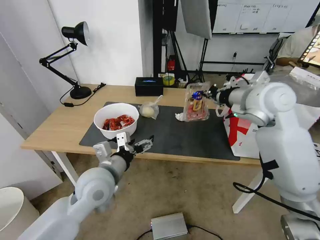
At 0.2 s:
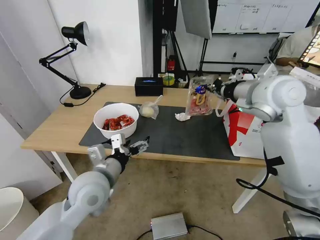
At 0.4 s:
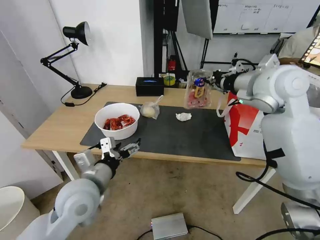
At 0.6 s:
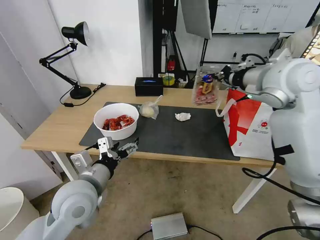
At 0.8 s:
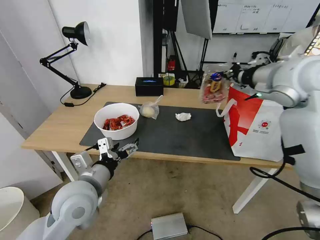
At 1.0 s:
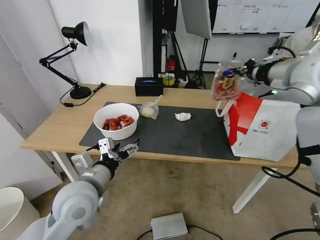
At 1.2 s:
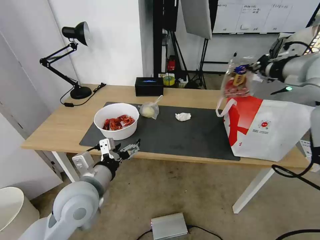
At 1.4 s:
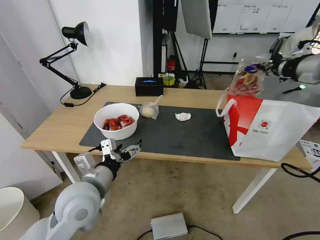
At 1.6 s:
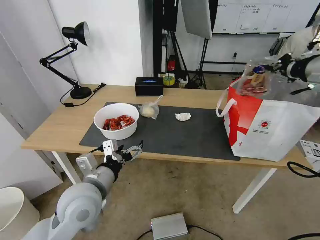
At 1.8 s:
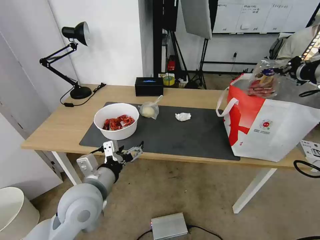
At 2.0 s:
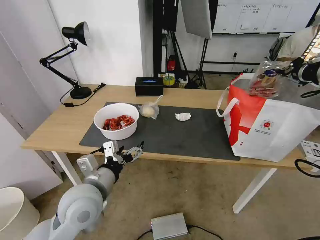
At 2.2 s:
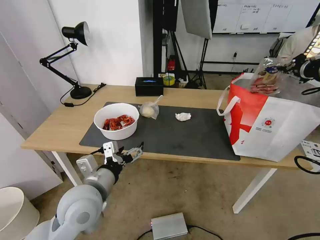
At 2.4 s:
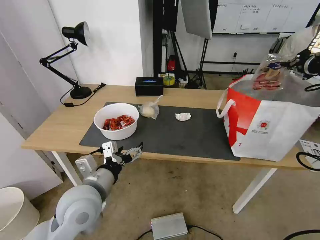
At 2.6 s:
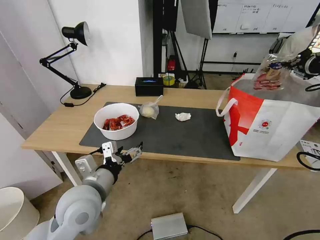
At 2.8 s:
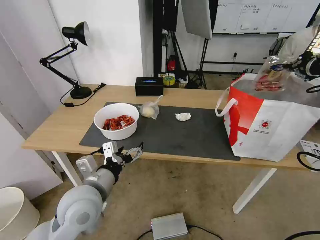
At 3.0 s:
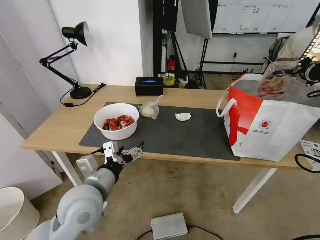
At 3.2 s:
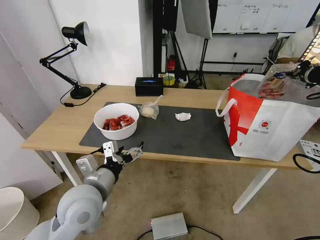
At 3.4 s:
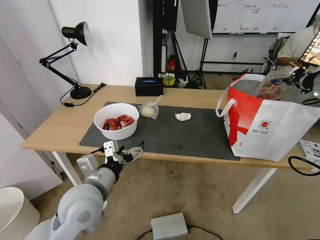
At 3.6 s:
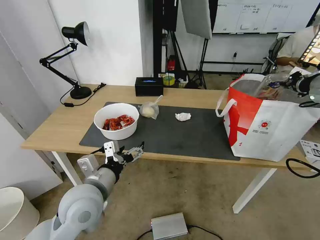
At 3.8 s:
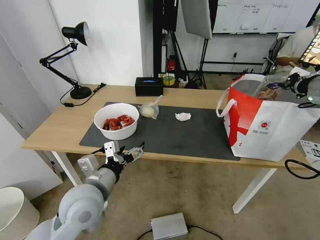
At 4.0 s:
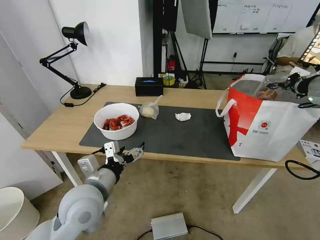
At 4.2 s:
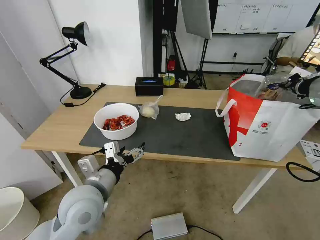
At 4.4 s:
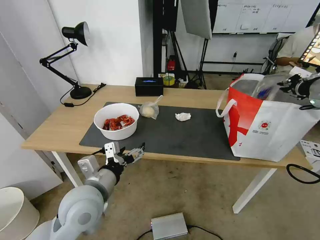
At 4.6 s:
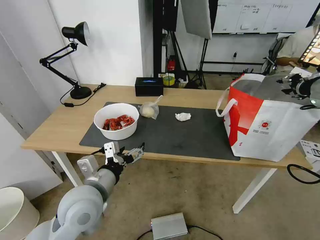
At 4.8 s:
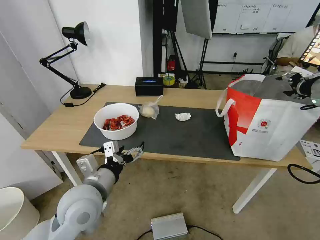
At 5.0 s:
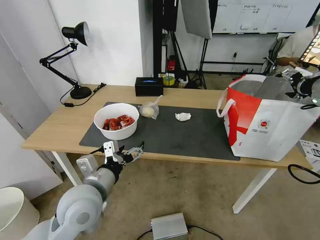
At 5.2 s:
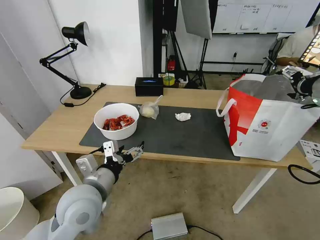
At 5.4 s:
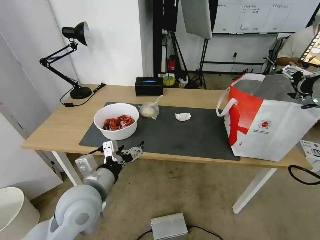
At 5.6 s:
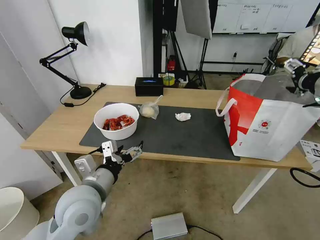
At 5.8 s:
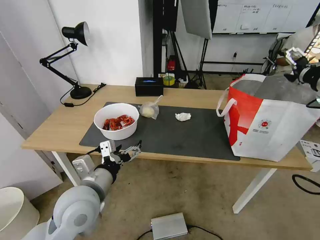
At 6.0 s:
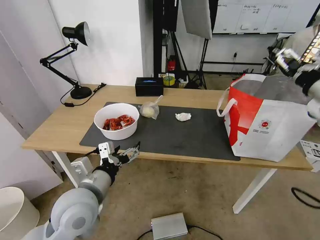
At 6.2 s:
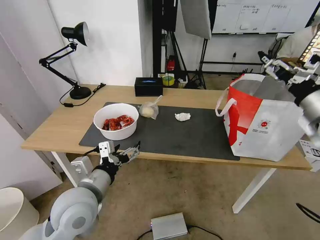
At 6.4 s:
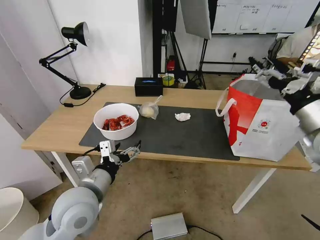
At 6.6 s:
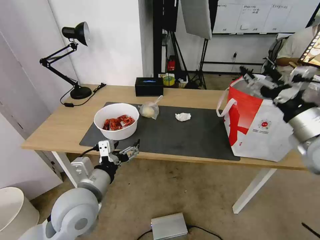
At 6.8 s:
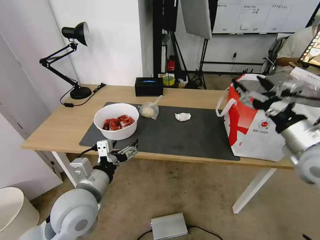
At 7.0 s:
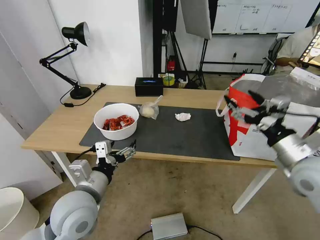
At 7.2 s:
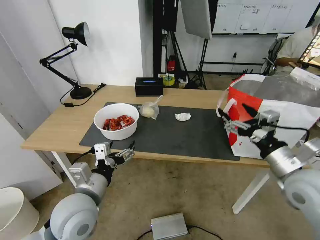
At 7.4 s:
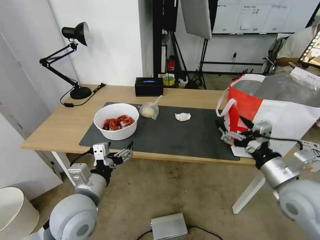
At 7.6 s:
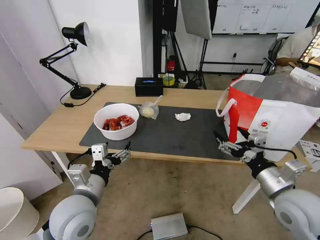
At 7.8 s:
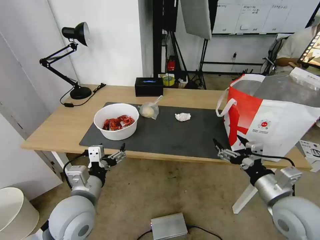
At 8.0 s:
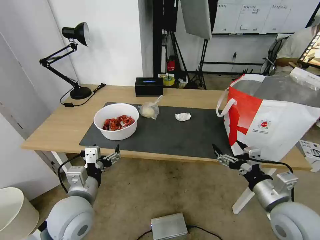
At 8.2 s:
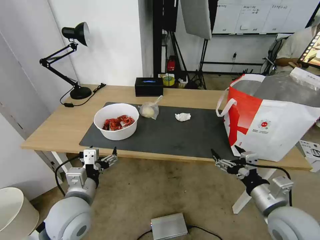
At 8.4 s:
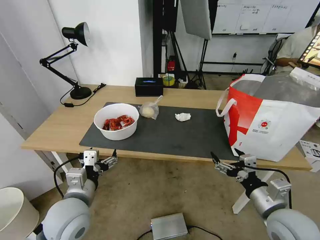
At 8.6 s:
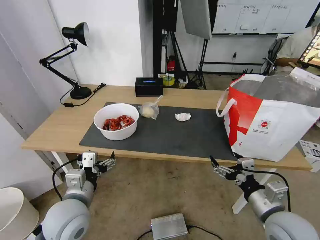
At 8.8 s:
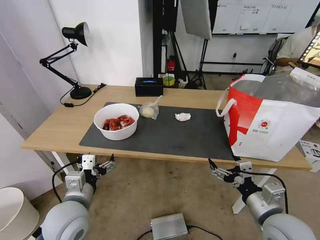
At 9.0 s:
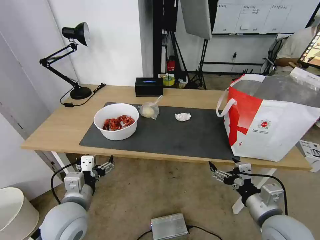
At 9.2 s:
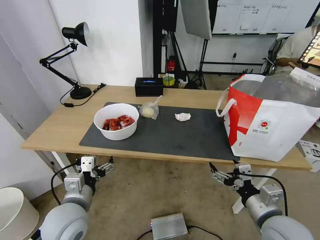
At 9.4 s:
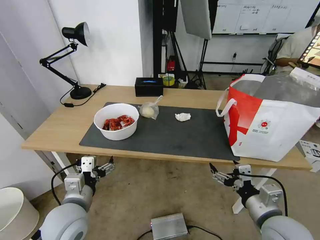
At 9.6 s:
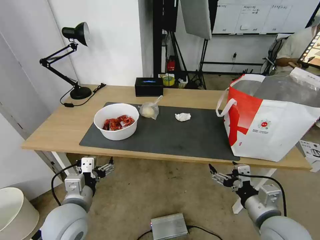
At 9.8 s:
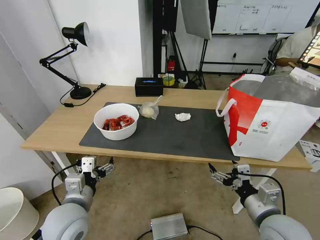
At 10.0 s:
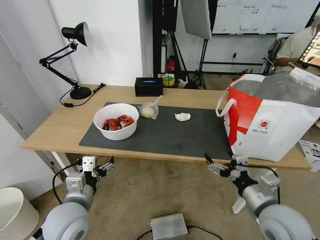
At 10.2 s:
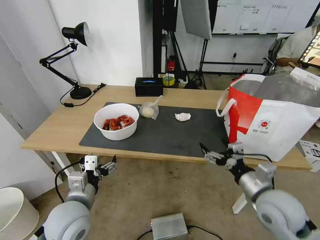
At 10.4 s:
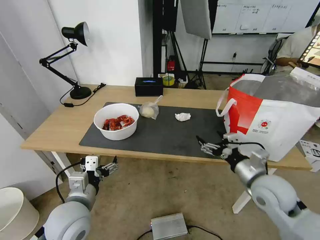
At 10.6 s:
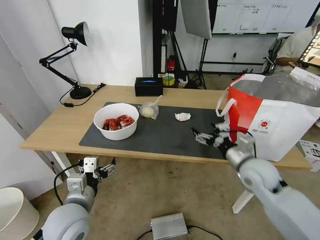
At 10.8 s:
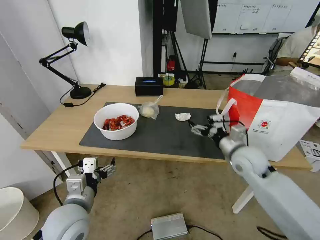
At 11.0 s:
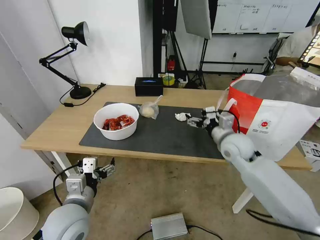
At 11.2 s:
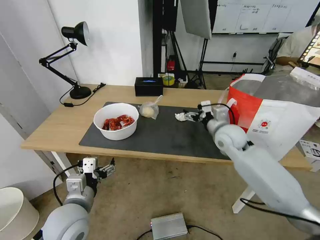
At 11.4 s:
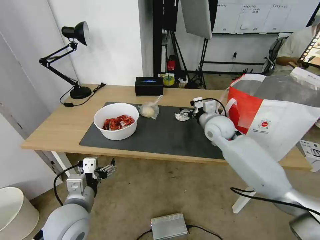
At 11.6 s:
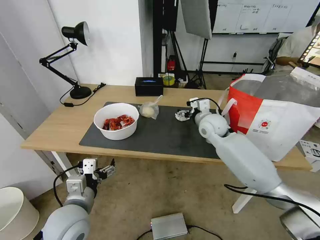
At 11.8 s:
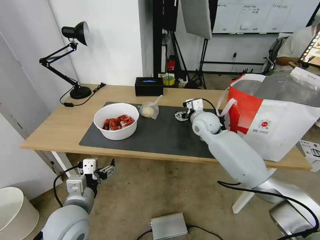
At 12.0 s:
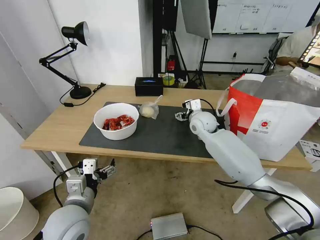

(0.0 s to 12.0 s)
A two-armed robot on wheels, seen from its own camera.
Task of the whole recording: Pick up the trash from the table and place it into the takeout bag.
0.0 s - 1.6 s: The right gripper is displaced to the right and upward by approximately 15 cm.
1.6 s - 3.0 s: The right gripper shifts by about 5 cm.
3.0 s - 4.4 s: The grippers move only a little.
4.4 s - 6.0 s: The right gripper is displaced backward by about 5 cm, and opens.
6.0 s - 7.6 s: The right gripper shifts approximately 25 cm downward, backward and to the left.
7.6 s - 9.0 s: The right gripper goes approximately 5 cm downward.
9.0 s - 10.4 s: The right gripper moves forward, approximately 10 cm.
10.4 s - 12.0 s: The right gripper goes some 30 cm forward and to the left.

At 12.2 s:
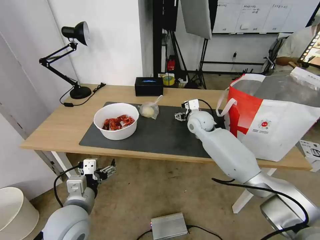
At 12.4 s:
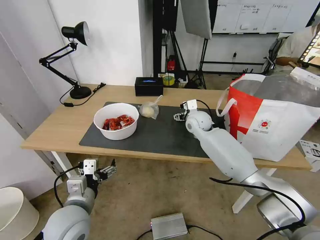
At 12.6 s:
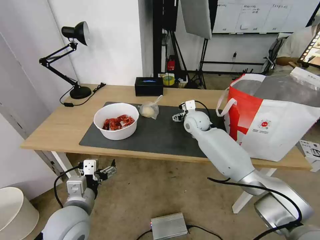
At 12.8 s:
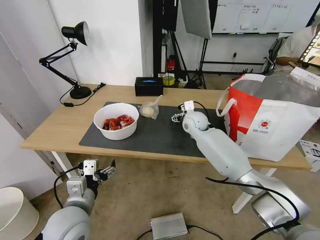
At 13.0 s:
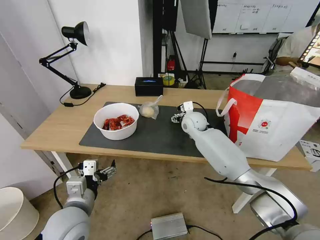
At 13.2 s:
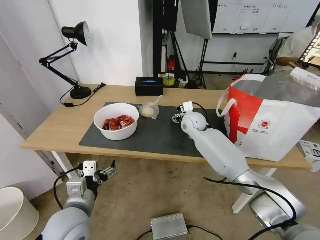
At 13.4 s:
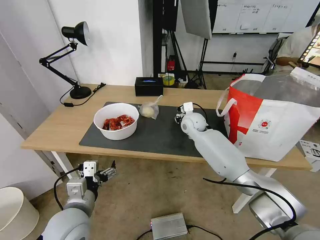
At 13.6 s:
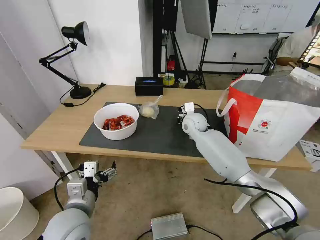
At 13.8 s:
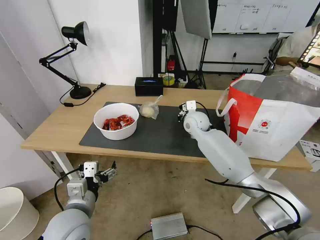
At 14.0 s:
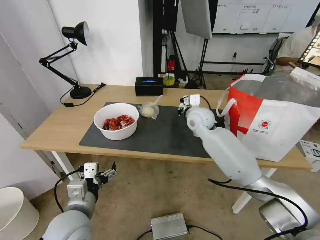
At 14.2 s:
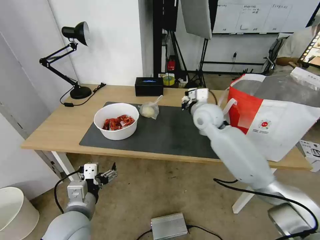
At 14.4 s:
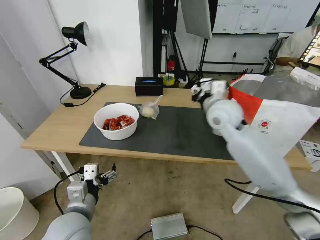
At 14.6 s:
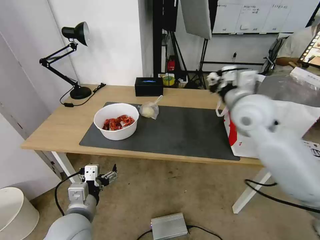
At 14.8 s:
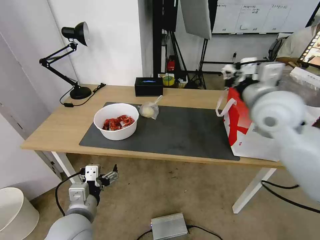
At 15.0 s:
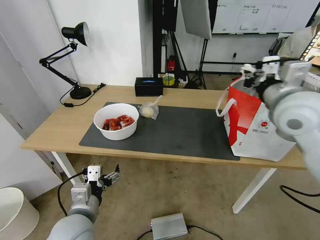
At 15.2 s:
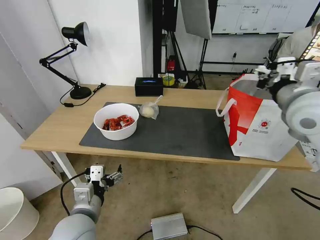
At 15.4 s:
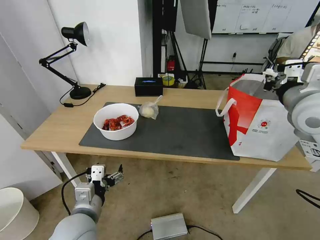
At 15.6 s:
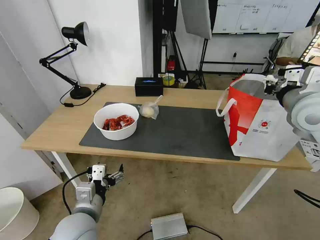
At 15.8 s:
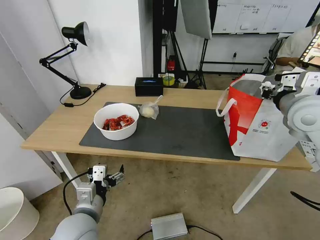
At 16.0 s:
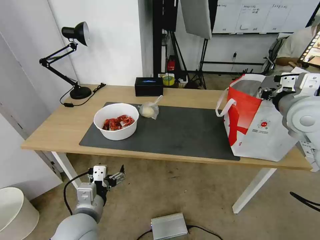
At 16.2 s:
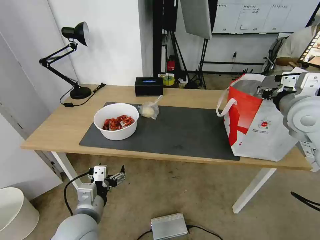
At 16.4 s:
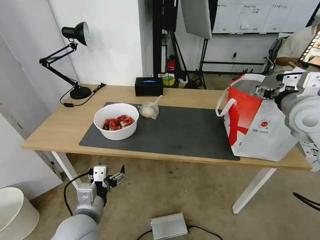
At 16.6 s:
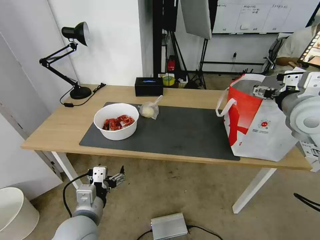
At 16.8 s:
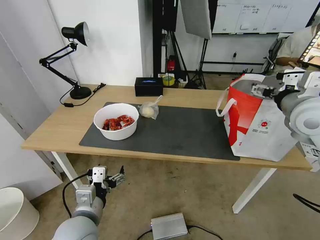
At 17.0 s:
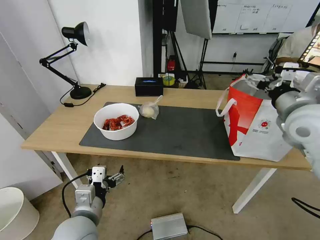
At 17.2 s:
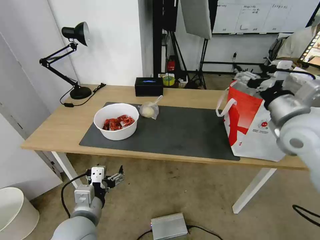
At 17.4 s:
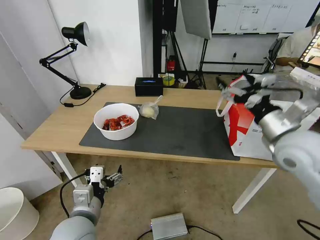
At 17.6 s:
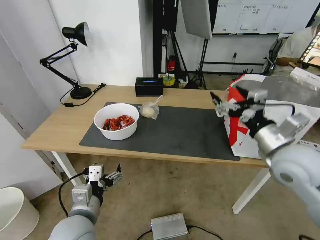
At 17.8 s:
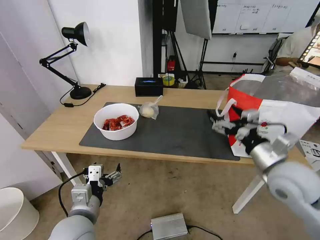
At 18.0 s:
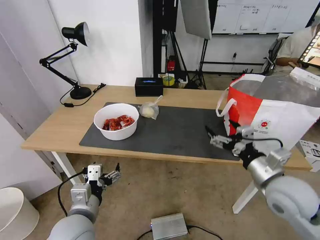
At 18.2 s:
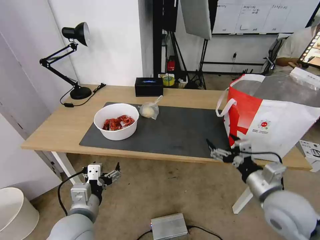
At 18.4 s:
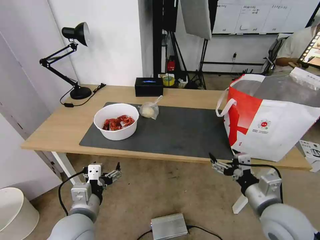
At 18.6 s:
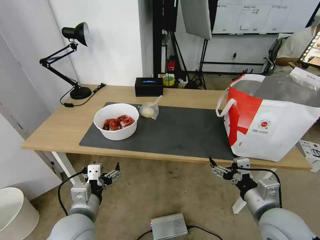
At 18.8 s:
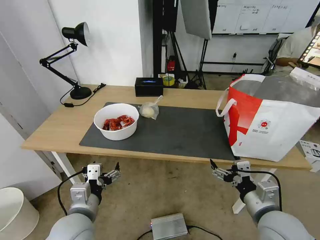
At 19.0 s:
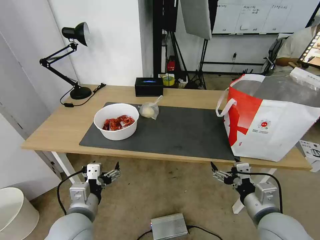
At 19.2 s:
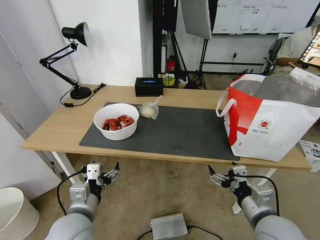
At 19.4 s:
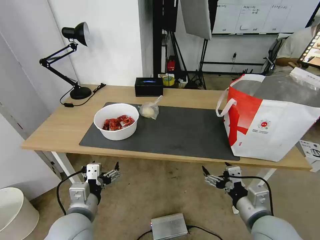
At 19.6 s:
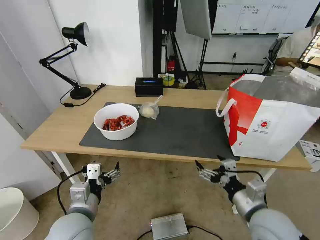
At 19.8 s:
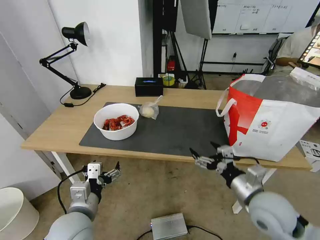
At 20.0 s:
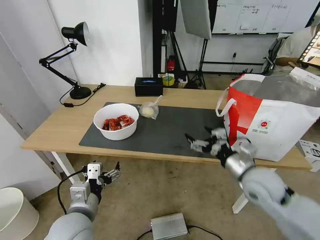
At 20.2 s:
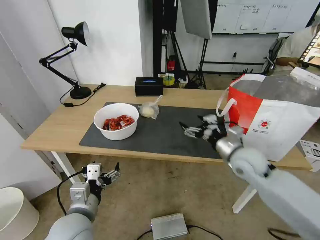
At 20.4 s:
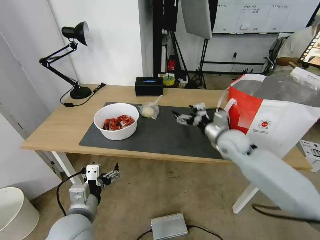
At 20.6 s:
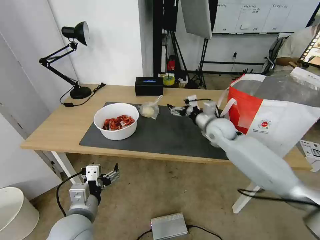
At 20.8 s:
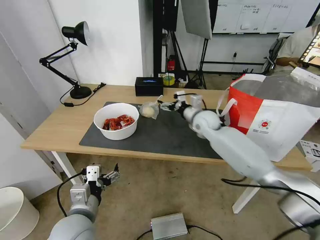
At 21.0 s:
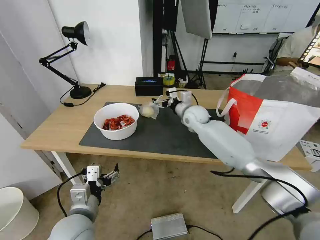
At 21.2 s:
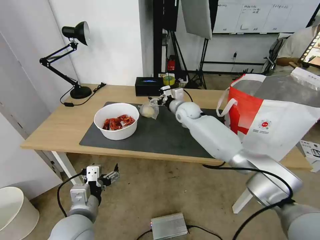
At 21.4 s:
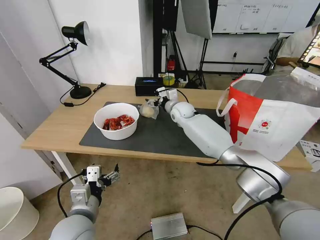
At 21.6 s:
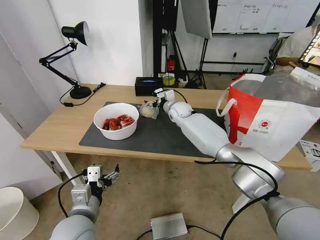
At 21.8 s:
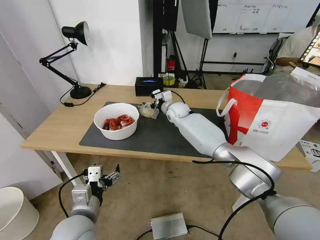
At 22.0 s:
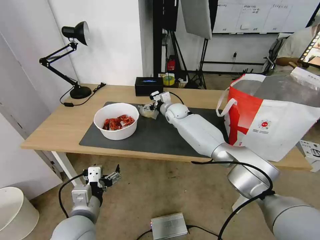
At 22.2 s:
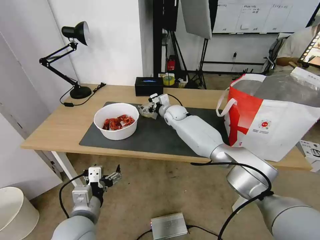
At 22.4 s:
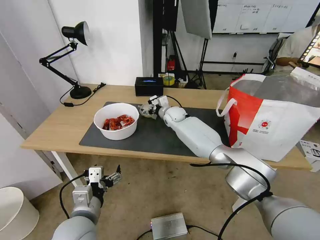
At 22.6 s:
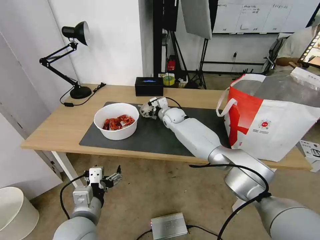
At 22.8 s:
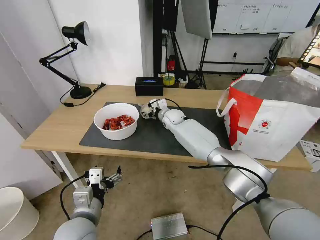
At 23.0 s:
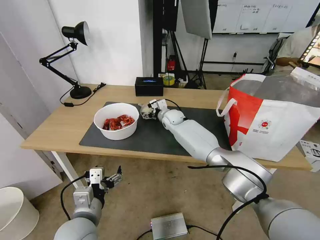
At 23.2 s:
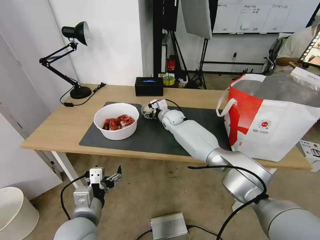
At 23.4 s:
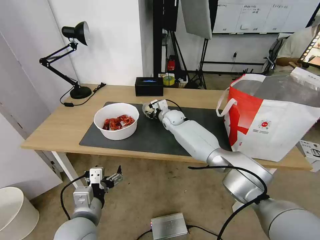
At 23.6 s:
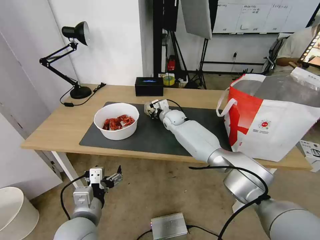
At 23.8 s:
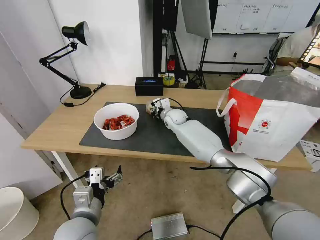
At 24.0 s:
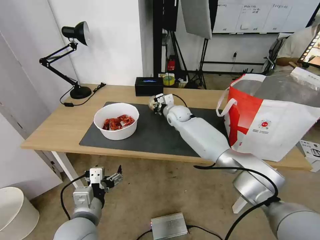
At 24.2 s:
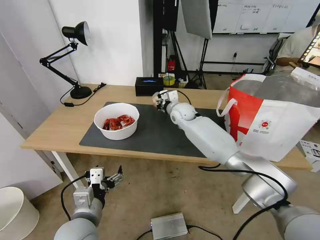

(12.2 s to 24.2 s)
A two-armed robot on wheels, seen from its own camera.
Task of the whole recording: Pick up the trash from the table and place it into the takeout bag.
12.2 s - 13.8 s: The right gripper closes up.
13.8 s - 15.2 s: The right gripper goes approximately 35 cm upward, backward and to the right.
15.2 s - 16.6 s: The right gripper shifts by about 5 cm, and opens.
16.6 s - 18.2 s: The right gripper shifts some 25 cm downward and backward.
19.8 s - 21.2 s: The right gripper heads forward and to the left, covering roughly 40 cm.
21.2 s - 22.6 s: The right gripper heads to the left, covering about 5 cm.
22.6 s - 24.2 s: The right gripper heads upward, covering some 5 cm, and closes its fingers.
